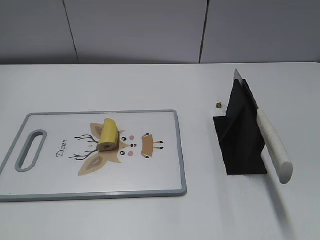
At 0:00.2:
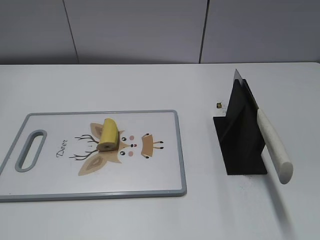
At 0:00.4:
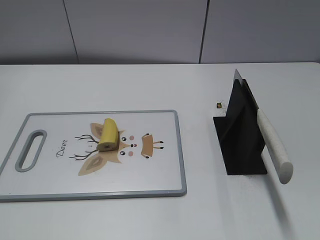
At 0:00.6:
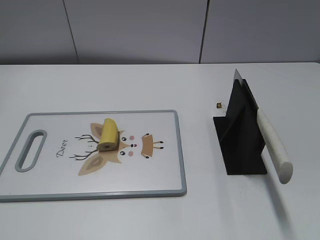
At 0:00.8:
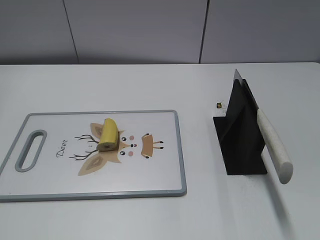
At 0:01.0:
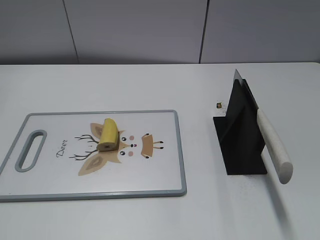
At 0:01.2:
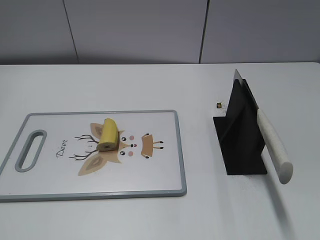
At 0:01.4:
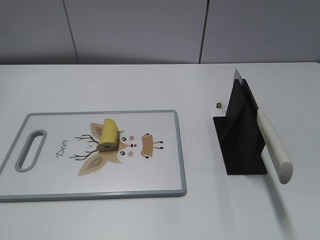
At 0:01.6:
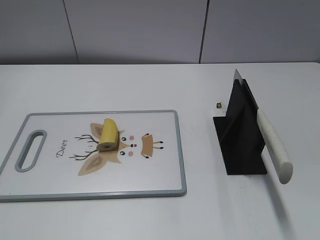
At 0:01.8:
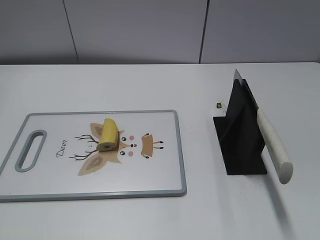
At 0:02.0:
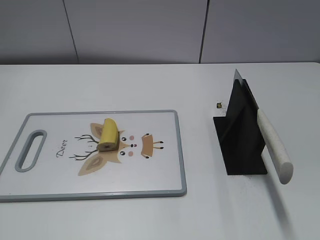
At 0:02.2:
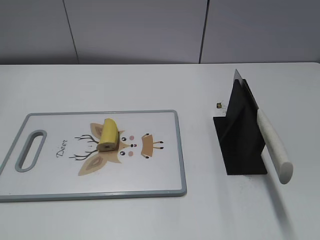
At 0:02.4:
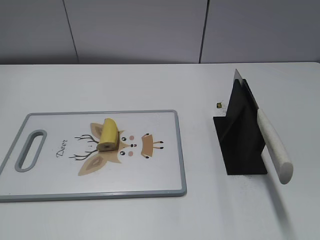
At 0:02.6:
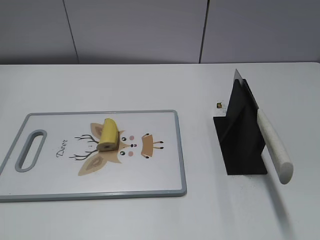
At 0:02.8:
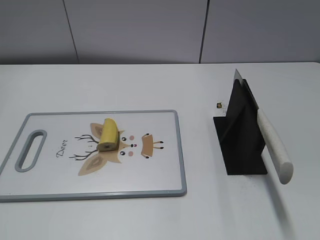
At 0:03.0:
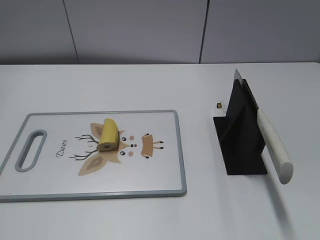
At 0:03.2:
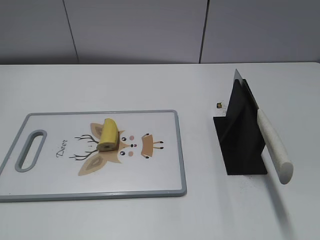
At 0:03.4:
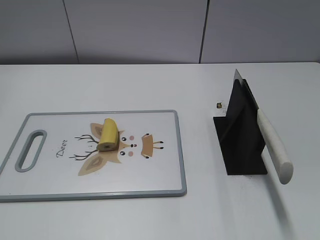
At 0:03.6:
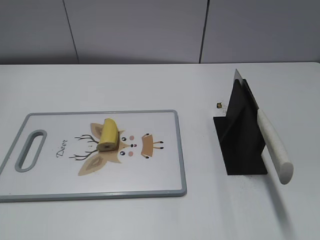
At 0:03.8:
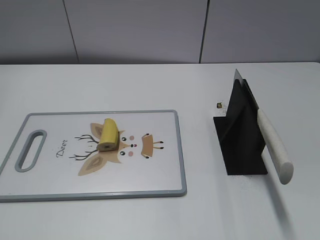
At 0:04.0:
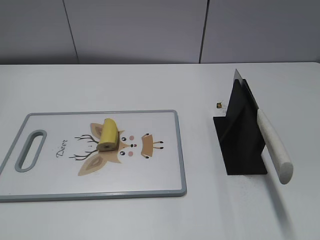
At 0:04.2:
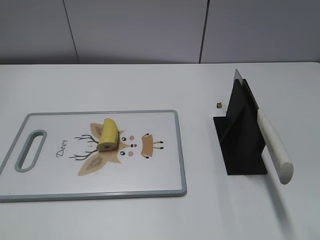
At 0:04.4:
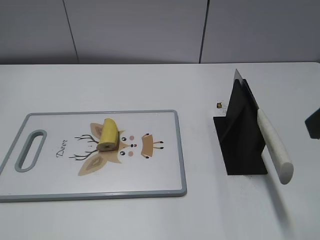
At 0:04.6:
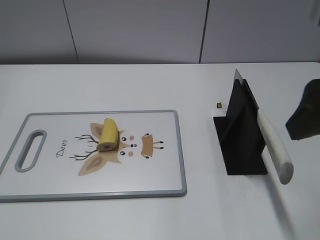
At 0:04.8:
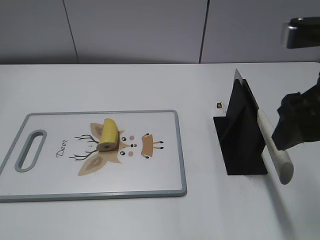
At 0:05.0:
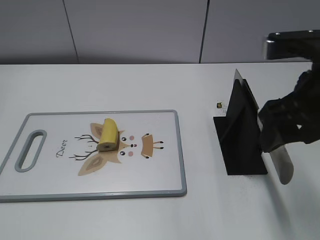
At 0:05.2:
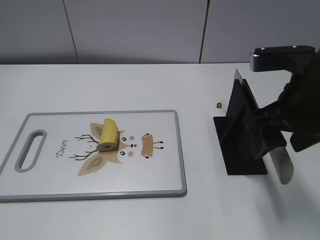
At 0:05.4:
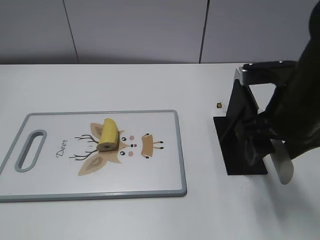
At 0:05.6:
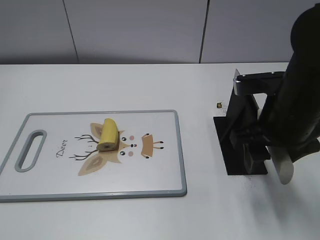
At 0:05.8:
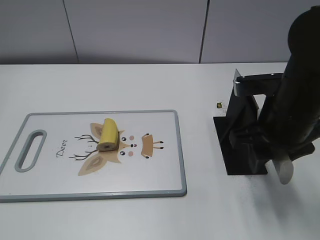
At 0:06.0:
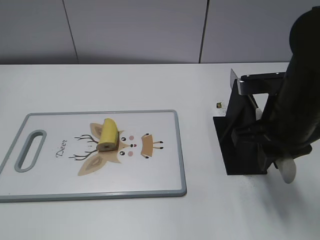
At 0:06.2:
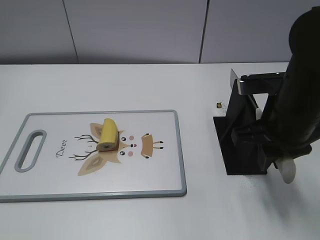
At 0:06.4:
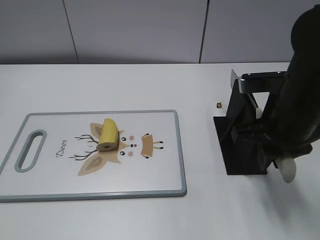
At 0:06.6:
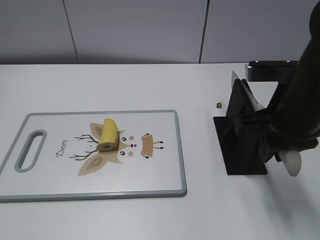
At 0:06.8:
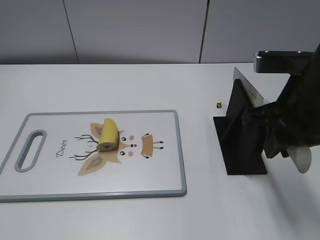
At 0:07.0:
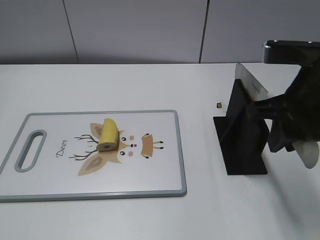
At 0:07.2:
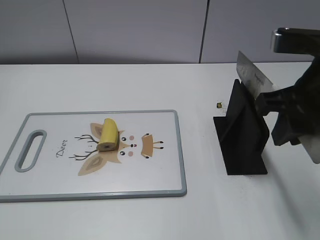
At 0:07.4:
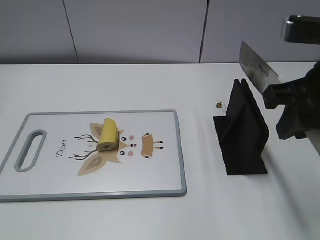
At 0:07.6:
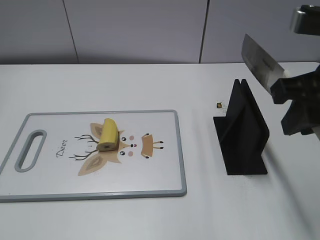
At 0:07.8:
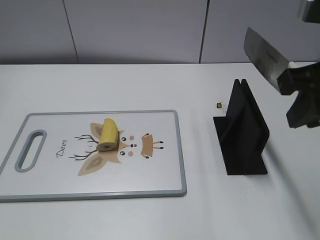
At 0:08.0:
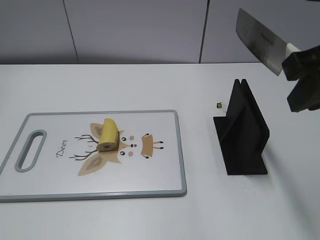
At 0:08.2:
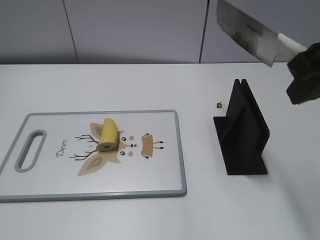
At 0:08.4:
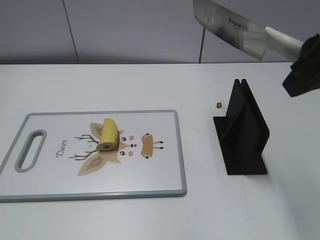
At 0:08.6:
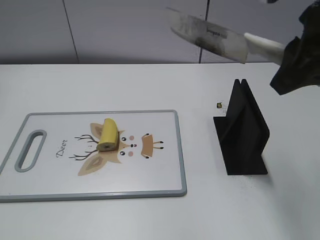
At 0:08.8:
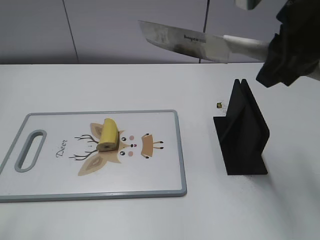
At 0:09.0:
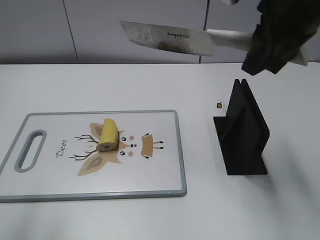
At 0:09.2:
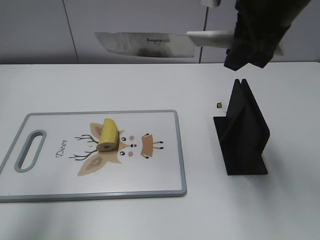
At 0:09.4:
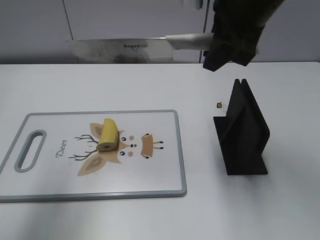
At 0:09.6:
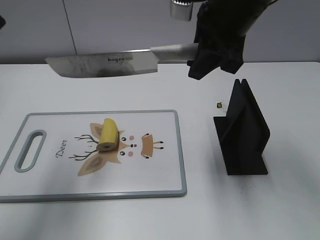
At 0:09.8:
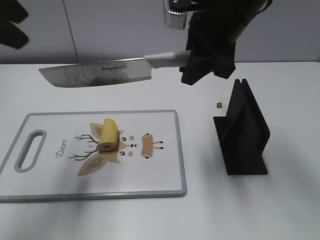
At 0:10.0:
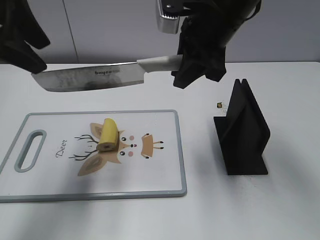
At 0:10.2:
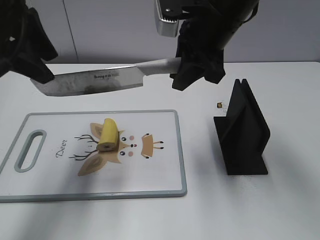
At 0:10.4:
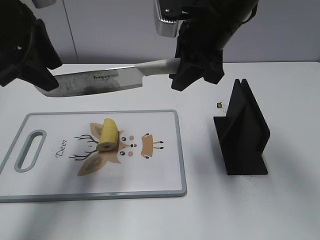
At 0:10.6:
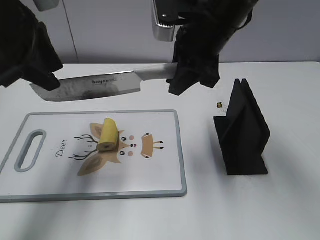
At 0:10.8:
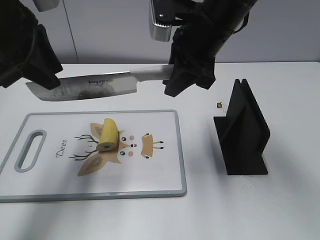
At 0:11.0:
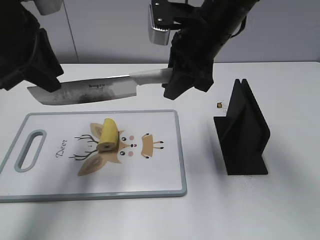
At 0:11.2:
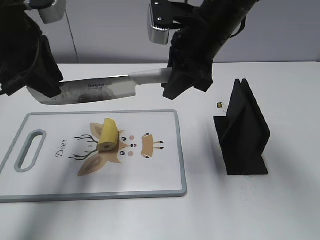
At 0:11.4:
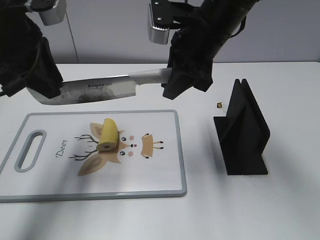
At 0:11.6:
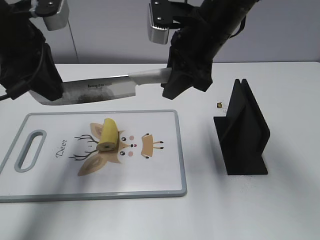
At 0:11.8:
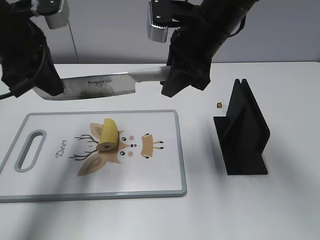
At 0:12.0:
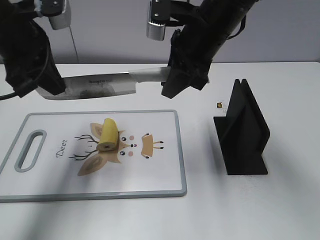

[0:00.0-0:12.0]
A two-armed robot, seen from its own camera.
Task of the whole recording: cut banana.
Step, 0:00.0 to 0:07.8: Grab the knife handle with your right hand.
0:04.4 to 0:06.0: The right gripper shifts some 15 cm downward and forward, and closes up.
0:06.0 to 0:07.6: The right gripper shifts about 10 cm upward.
0:07.6 to 0:09.0: The left gripper moves forward and upward, roughly 15 cm, while the right gripper heads forward, covering about 5 cm.
0:09.0 to 0:10.4: The left gripper shifts roughly 20 cm forward. The right gripper is displaced forward, to the left and downward by roughly 10 cm.
0:10.4 to 0:12.0: The left gripper closes its fingers.

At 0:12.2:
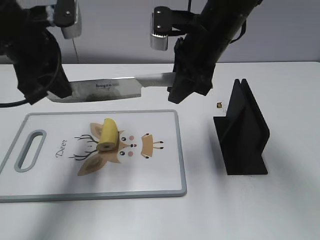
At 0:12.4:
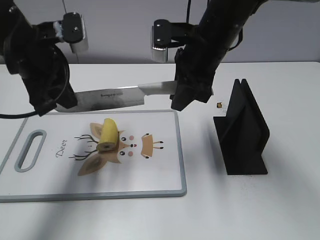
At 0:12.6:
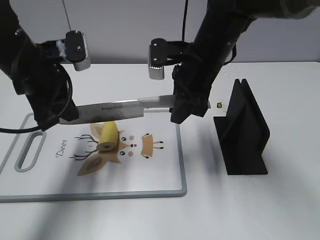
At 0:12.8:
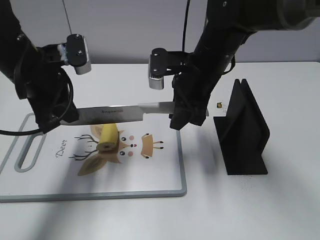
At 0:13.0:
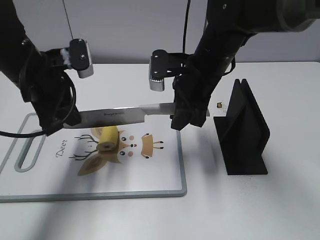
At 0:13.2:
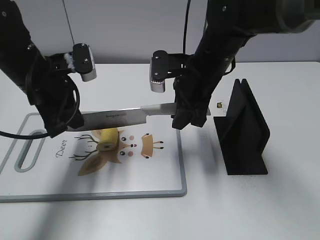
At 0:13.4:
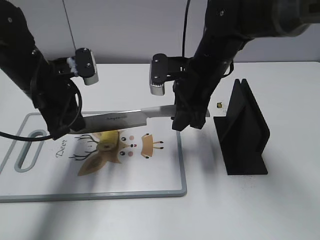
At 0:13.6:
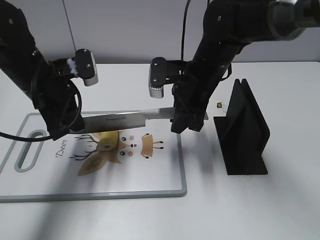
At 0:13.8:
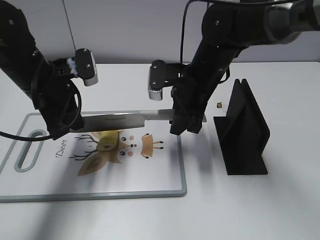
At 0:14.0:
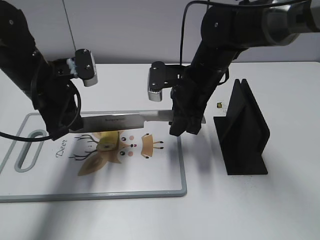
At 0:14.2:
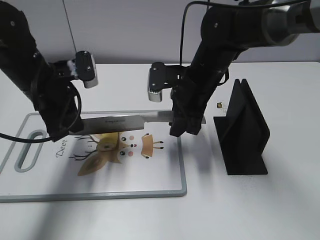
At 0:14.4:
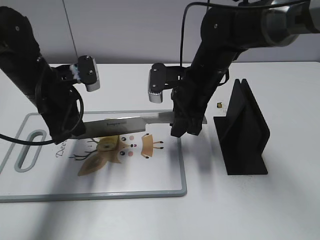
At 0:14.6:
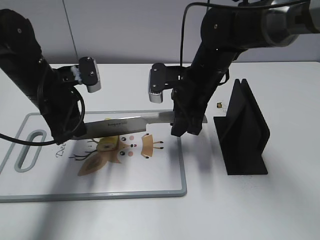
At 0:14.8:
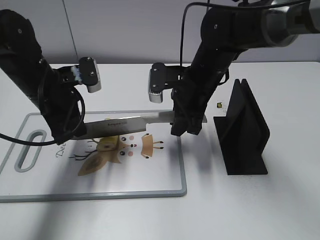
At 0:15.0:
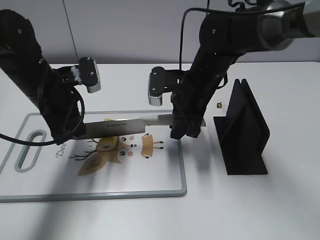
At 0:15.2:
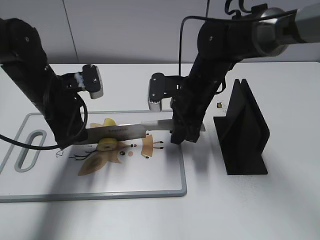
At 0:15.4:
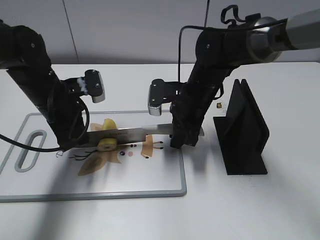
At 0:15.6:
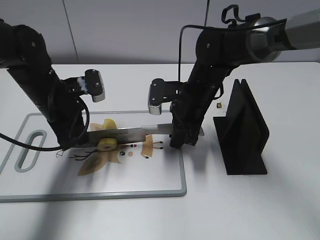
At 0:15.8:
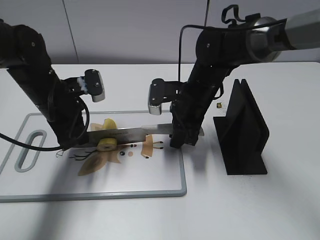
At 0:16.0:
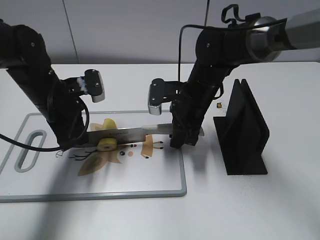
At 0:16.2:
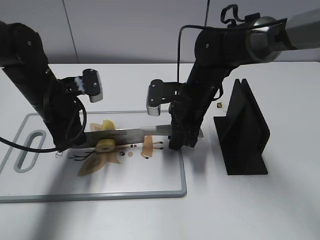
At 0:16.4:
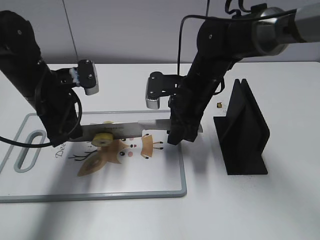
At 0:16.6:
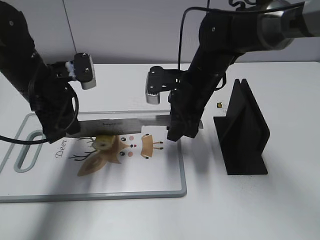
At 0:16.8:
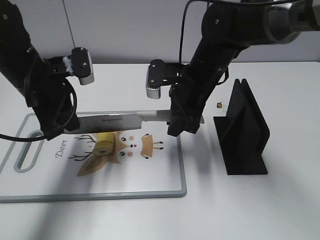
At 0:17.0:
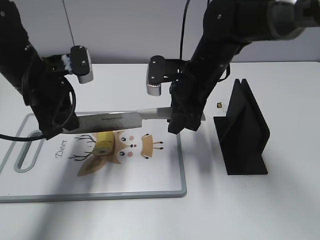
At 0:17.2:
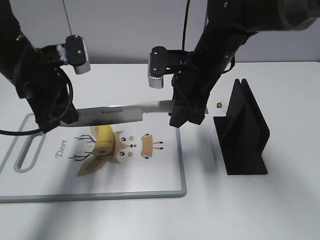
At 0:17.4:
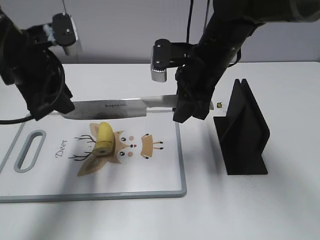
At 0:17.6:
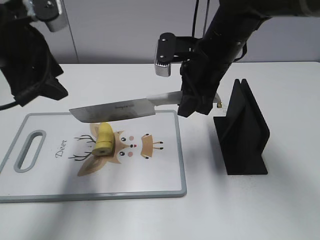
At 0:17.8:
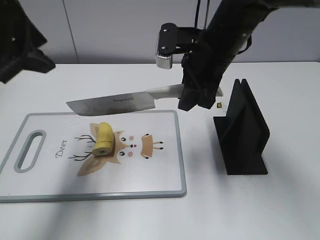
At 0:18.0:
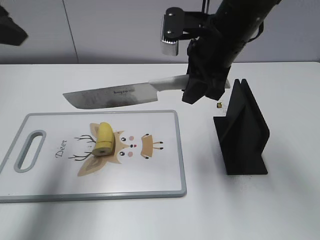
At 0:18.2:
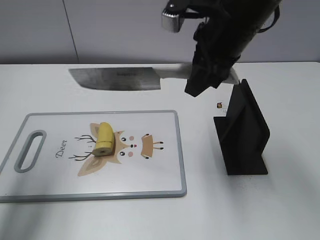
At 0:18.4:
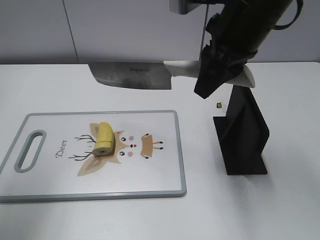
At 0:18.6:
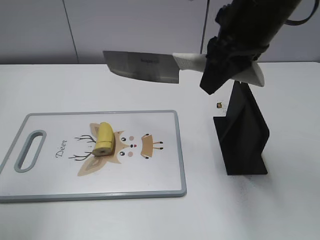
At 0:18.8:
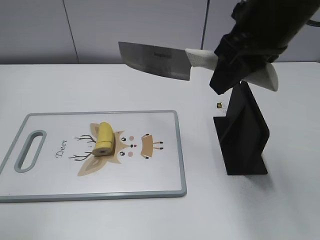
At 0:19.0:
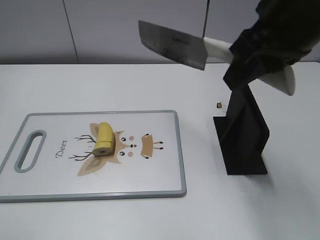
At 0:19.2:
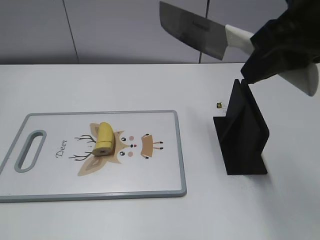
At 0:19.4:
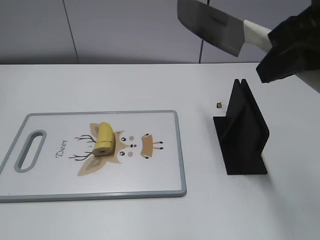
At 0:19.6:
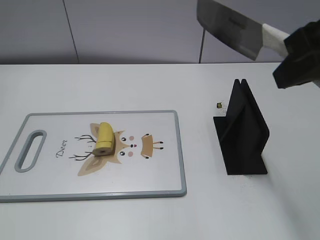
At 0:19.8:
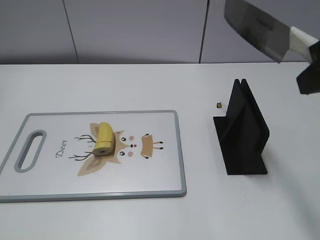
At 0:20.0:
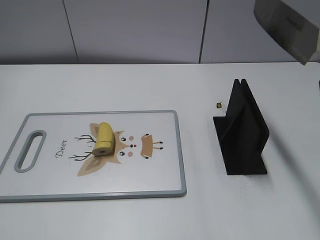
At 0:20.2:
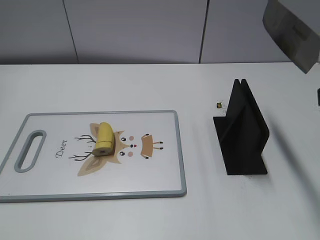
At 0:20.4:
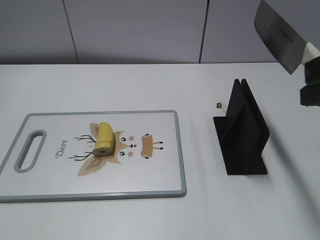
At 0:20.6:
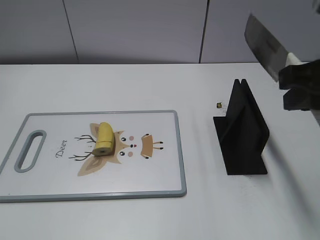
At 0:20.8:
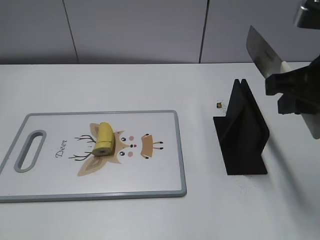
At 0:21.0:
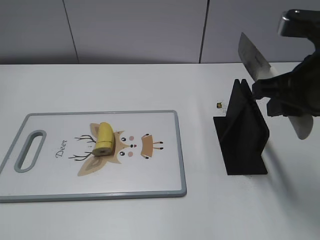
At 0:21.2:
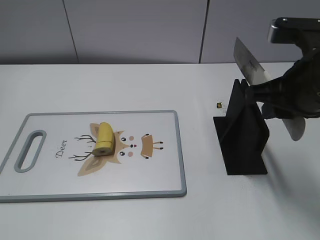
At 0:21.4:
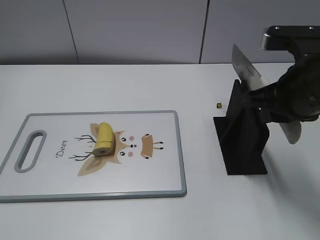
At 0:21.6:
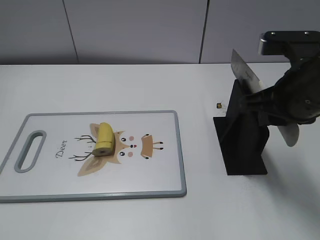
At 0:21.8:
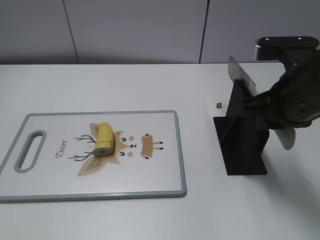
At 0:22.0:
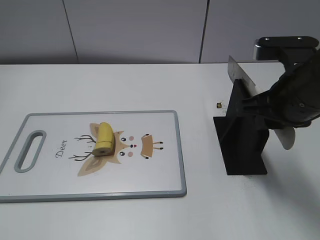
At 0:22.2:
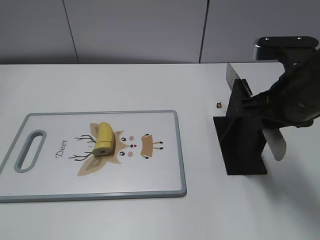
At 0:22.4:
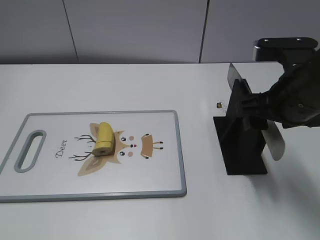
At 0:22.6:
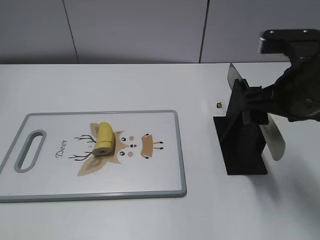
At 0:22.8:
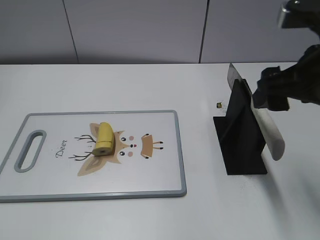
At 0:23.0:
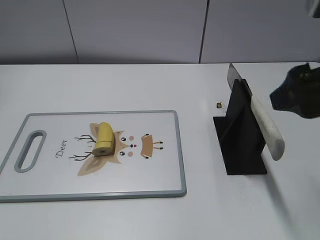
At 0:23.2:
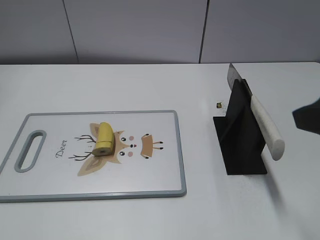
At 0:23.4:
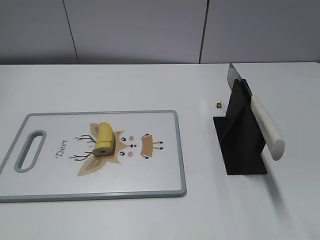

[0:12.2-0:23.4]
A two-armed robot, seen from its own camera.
Task of the whole recording: cut banana.
Step, 0:12.2 to 0:14.8: Lift the knife with your right hand.
Step, 0:15.0 to 0:19.8: Cut the banana with your right hand.
0:12.2 to 0:13.8: Both grippers travel together downward, approximately 10 cm.
0:15.4 to 0:17.0: Both grippers travel together upward, roughly 5 cm.
0:17.0 to 0:18.6: The right gripper travels upward and backward by about 15 cm. The left gripper heads upward, backward and to the left, covering roughly 25 cm, and opens.
0:18.6 to 0:20.2: The left gripper goes about 20 cm backward and downward. Meanwhile the right gripper goes approximately 15 cm backward and to the right.
0:20.2 to 0:21.8: The right gripper is displaced downward and forward by roughly 15 cm.
0:21.8 to 0:23.4: The right gripper moves backward, upward and to the right, roughly 15 cm, and opens its fingers.
